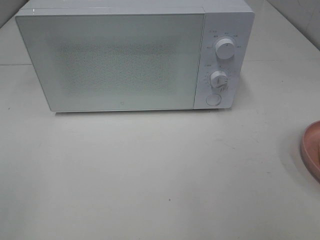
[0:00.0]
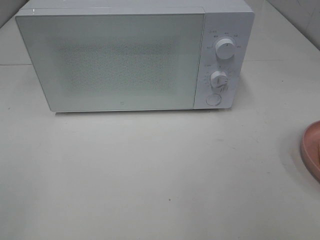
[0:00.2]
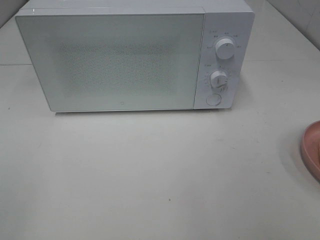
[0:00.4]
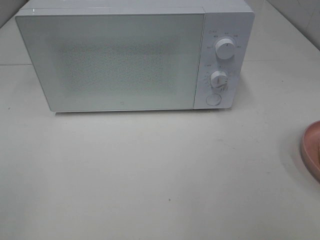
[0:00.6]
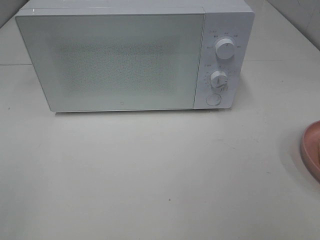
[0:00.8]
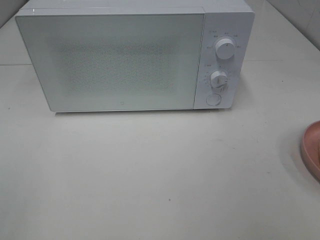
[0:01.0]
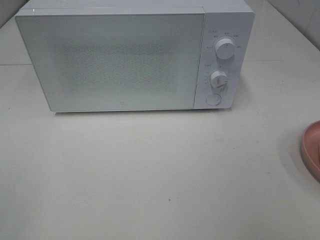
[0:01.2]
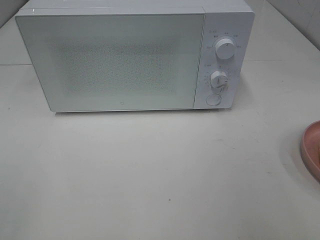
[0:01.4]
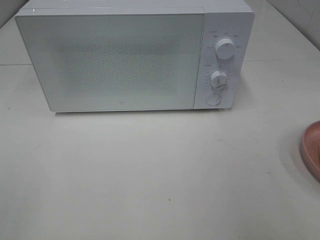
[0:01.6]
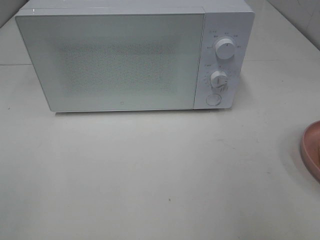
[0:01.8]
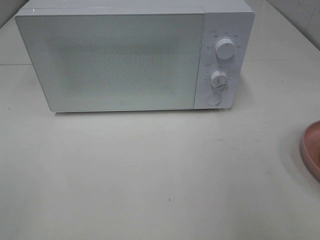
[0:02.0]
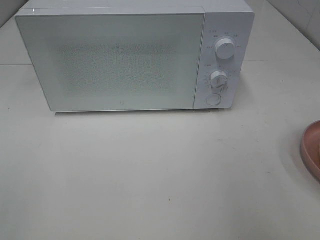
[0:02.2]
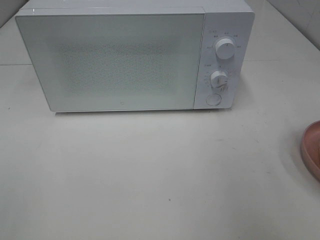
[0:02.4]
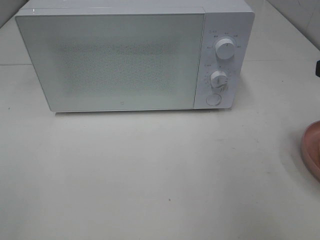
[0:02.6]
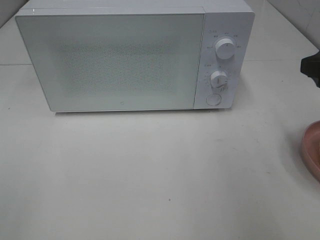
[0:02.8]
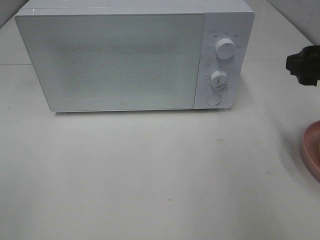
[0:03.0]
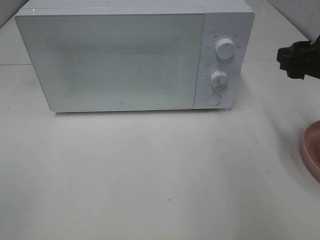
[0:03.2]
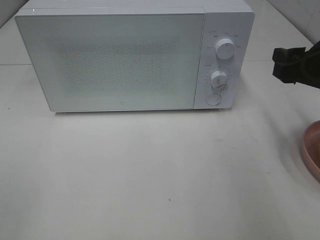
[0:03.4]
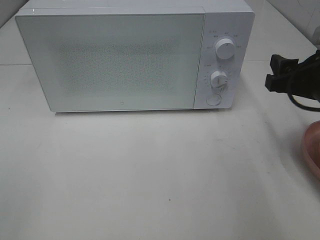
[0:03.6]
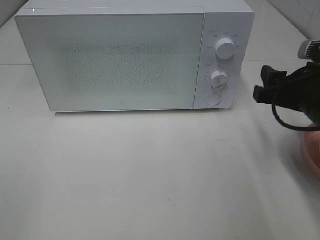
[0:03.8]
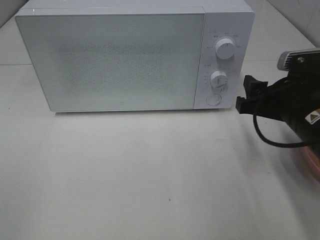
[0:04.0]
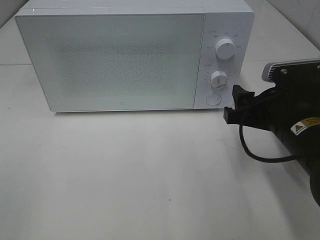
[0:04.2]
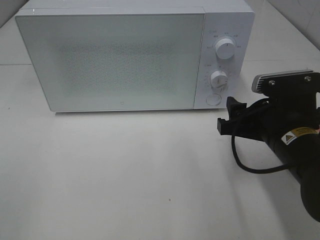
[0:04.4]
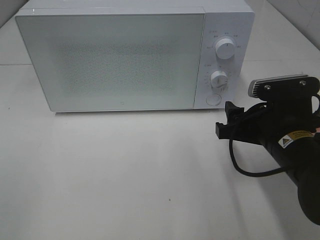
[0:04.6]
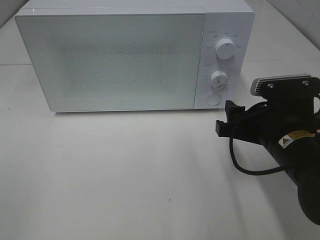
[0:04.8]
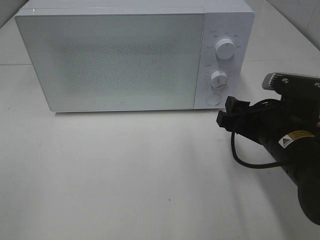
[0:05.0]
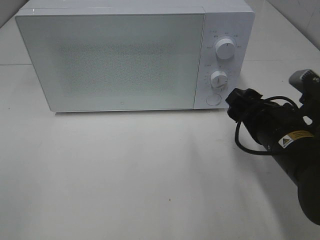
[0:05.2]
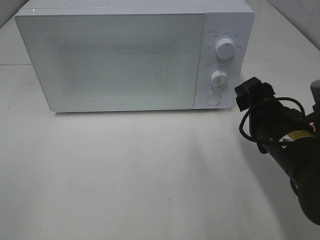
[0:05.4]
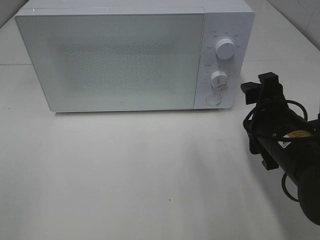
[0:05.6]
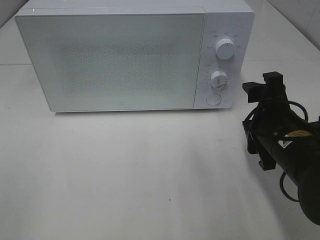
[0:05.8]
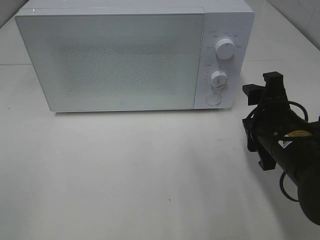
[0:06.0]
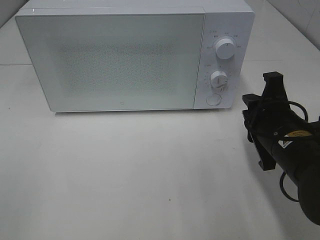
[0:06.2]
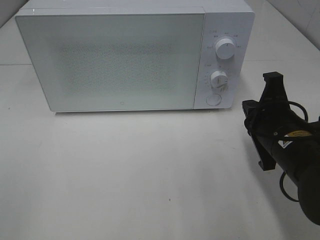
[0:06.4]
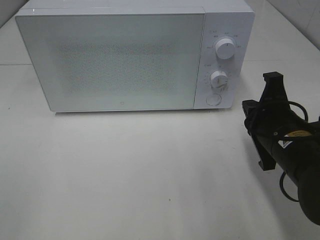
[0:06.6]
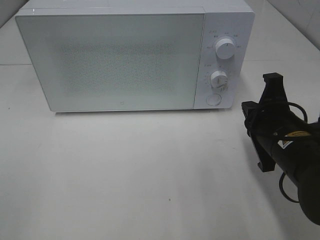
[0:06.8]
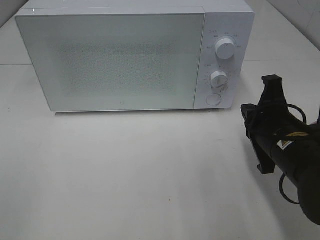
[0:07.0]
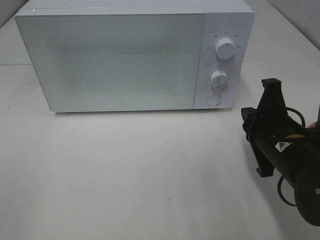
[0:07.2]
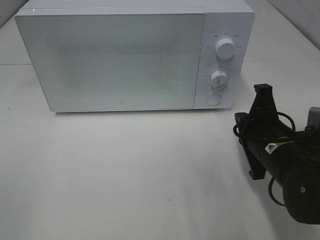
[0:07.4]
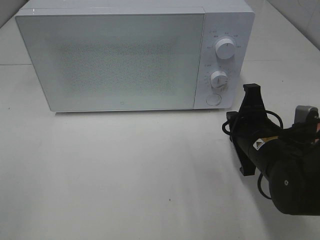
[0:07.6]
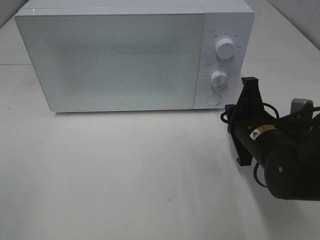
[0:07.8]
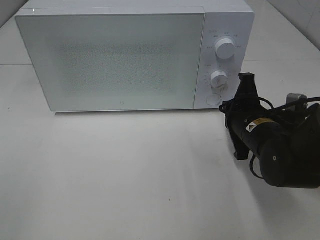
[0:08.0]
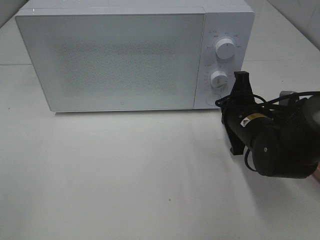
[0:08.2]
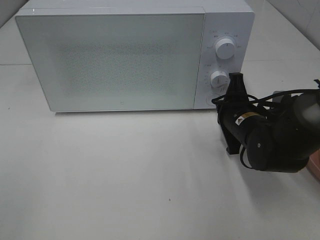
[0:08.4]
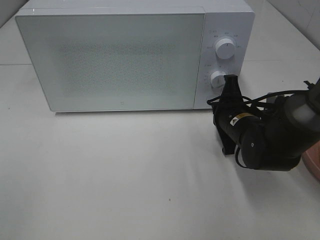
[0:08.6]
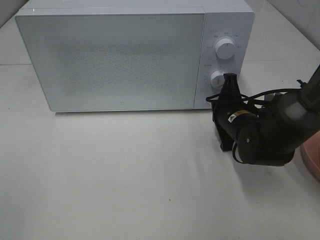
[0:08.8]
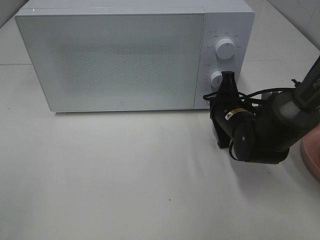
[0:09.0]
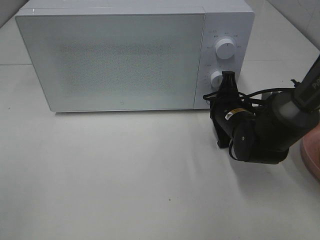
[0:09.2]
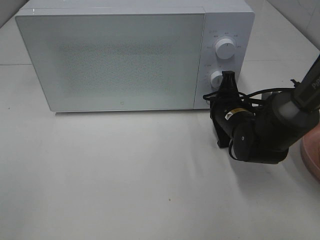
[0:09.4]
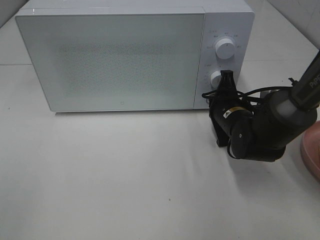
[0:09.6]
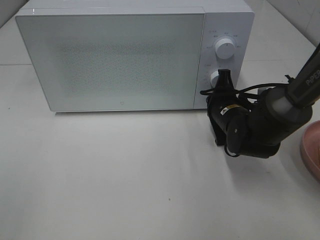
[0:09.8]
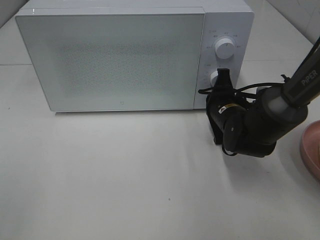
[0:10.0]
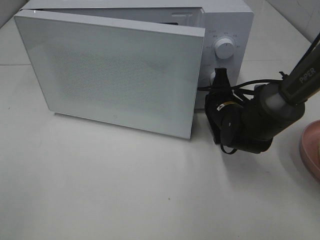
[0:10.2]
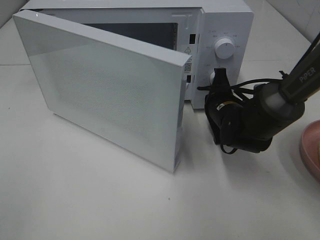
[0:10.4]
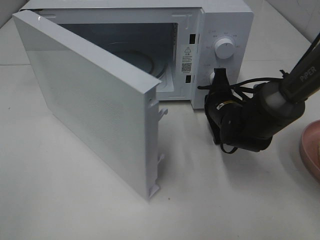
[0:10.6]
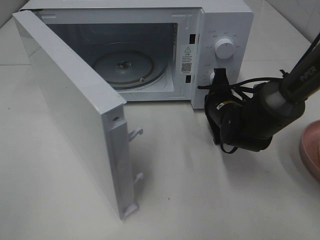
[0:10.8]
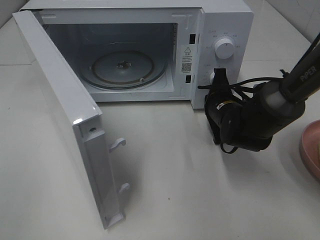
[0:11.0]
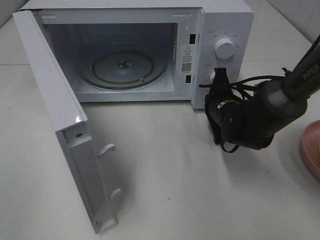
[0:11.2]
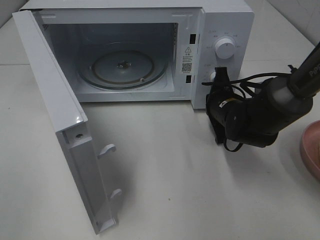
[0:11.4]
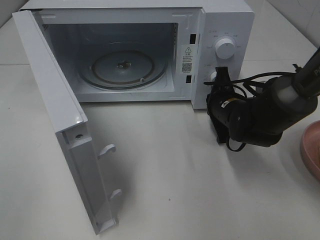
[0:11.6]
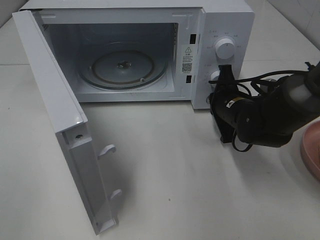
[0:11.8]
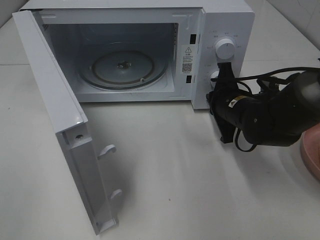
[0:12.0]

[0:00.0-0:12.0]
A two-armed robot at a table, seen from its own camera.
Task of the whole recording: Heat Sandwich.
0:01.6 to 0:03.0: The right gripper shifts some 15 cm forward.
0:03.0 to 0:04.4: The right gripper goes some 15 cm downward and to the left.
0:06.0 to 0:07.6: The right gripper closes up.
0:07.6 to 0:09.0: The right gripper shifts approximately 10 cm forward.

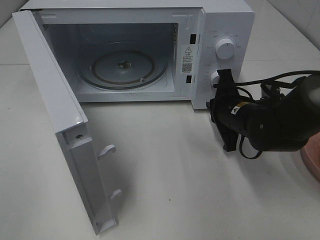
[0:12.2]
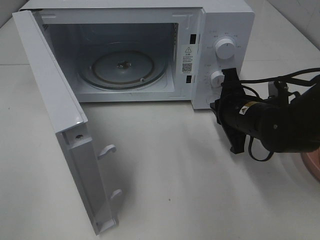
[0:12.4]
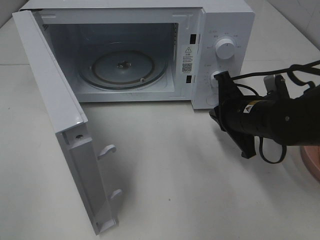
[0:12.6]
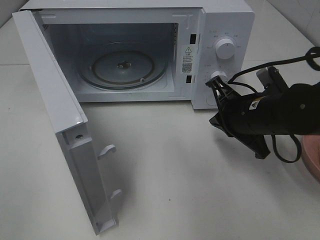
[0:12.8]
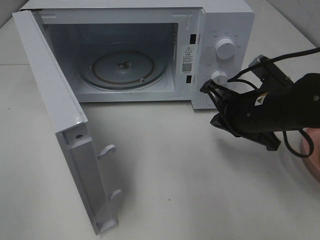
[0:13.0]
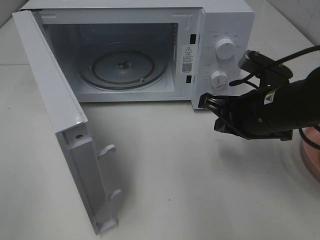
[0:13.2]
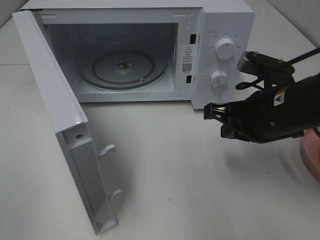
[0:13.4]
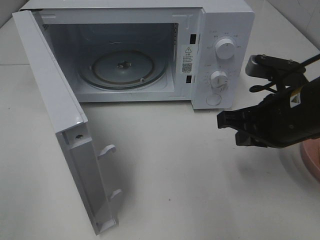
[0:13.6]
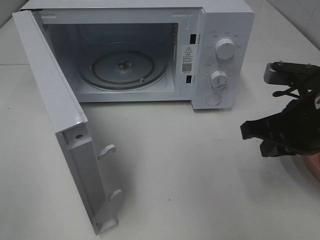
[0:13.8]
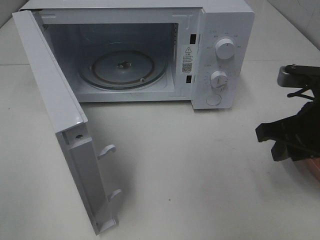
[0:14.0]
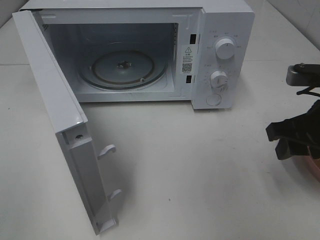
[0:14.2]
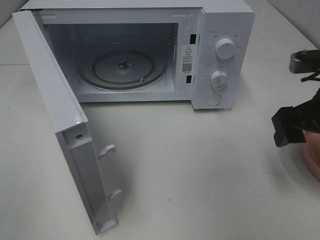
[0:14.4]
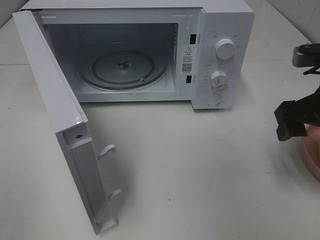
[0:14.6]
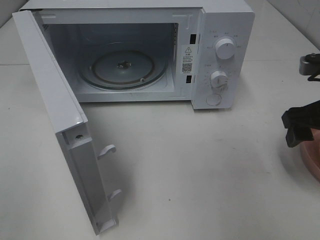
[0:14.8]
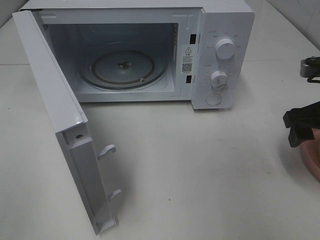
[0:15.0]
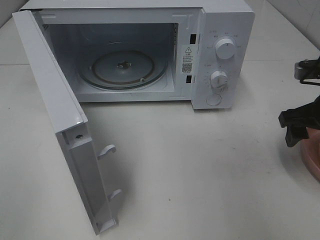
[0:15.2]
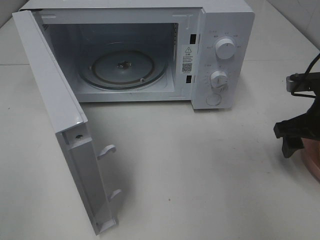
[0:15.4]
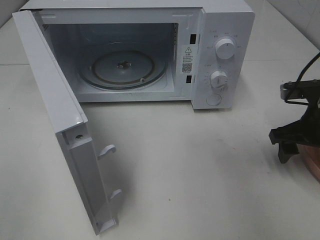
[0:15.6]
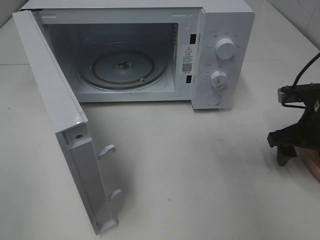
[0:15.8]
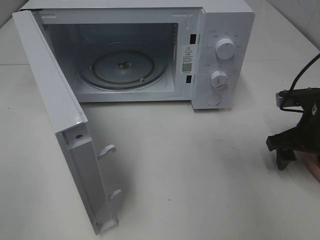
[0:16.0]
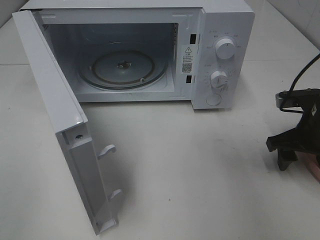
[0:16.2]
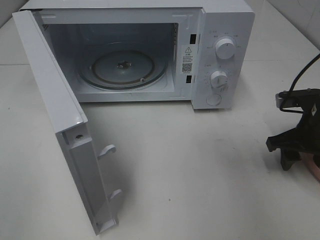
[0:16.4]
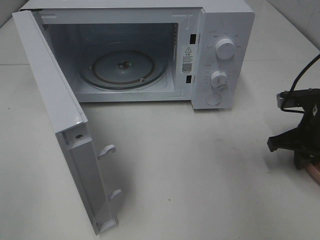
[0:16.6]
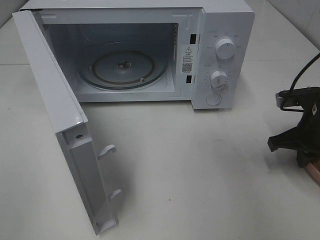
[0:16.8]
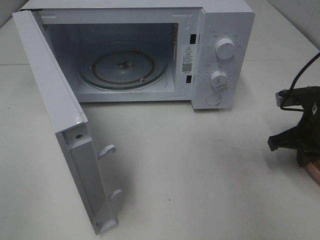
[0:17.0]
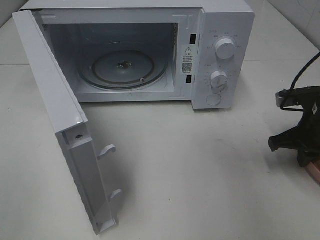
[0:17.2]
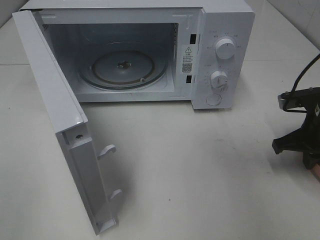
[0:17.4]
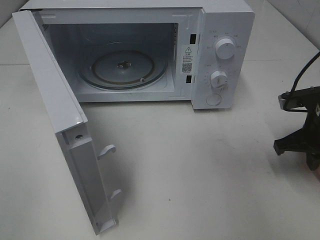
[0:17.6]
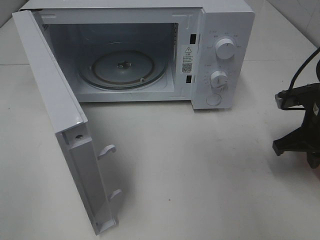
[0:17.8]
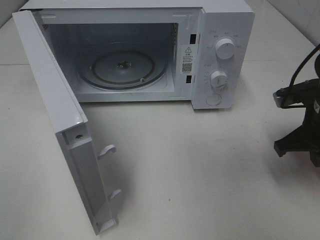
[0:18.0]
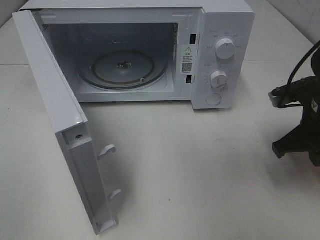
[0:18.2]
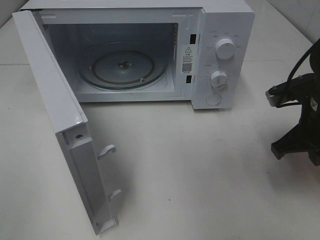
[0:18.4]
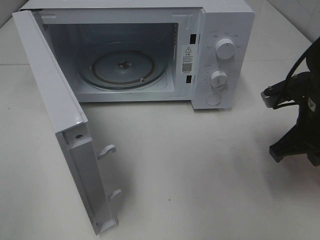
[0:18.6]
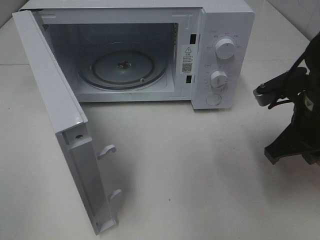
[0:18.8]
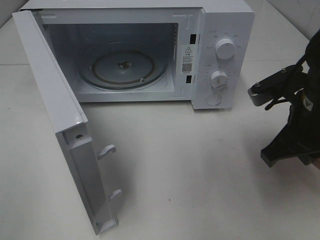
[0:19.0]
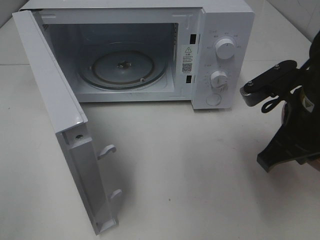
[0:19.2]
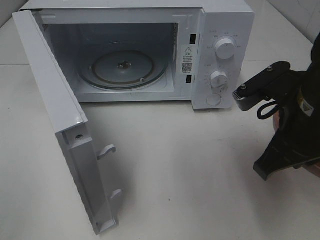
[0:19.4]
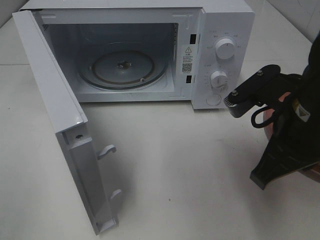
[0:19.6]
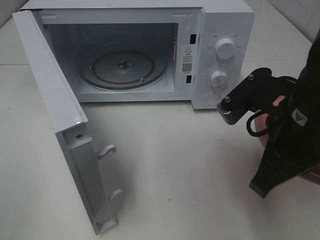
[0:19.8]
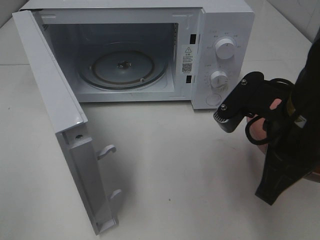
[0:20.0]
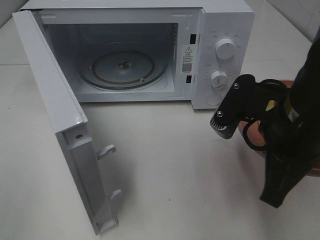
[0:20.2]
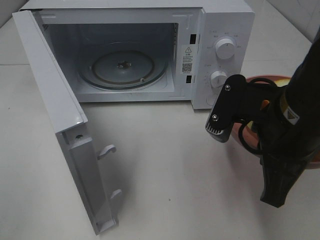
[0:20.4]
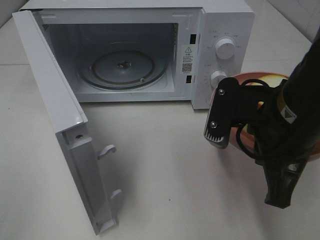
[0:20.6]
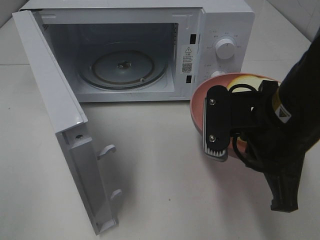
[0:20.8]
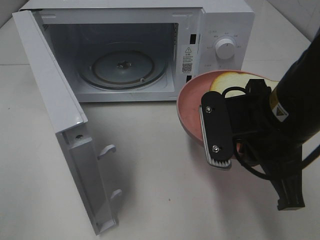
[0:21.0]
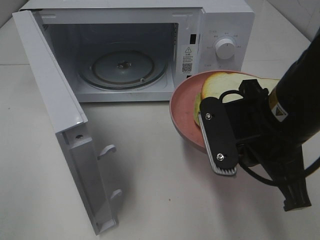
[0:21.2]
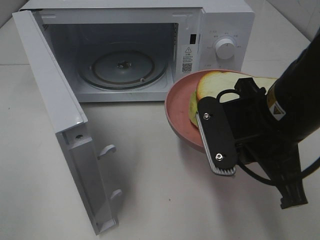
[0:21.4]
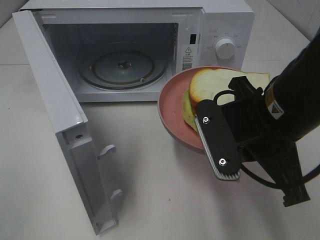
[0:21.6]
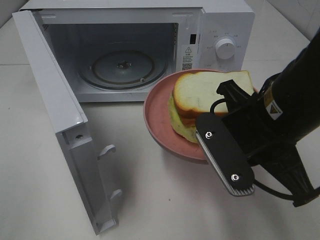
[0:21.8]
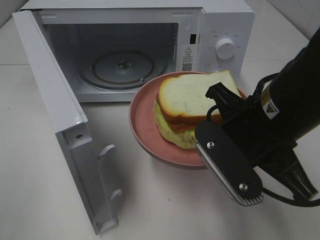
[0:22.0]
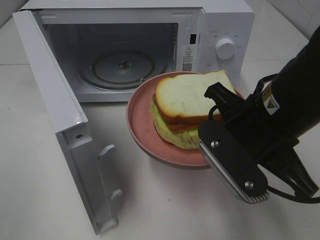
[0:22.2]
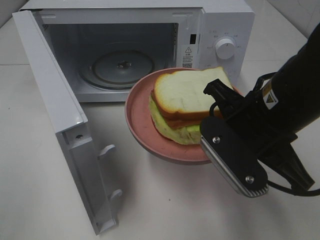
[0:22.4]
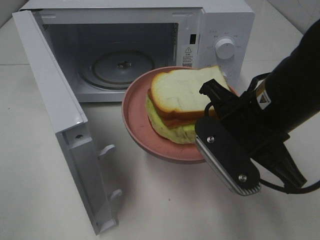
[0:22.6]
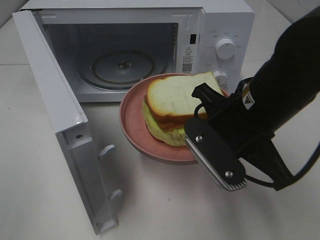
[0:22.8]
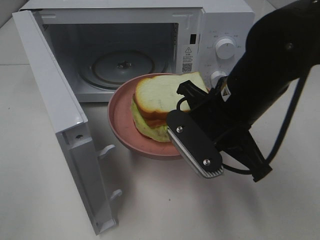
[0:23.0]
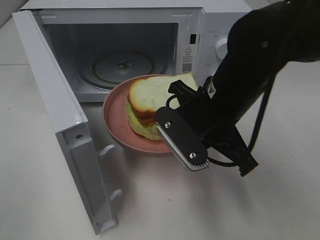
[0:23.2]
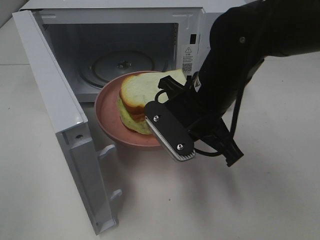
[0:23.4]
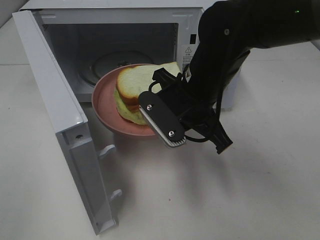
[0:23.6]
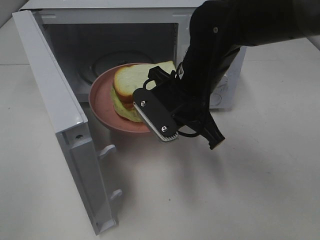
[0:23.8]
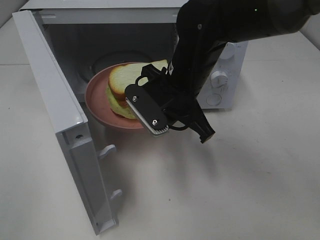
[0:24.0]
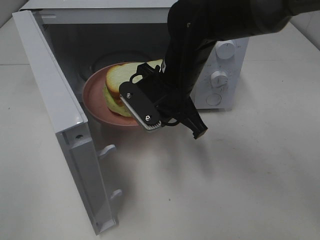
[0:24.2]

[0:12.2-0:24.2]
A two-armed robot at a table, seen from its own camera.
Task of the whole recording: Heat Sandwich.
Step, 0:12.8 to 0:17.0: Right hand: grab the plate with the sandwich.
0:12.2 to 0:13.8: The right gripper is displaced backward, upward and to the right by some 15 cm.
0:13.8 to 0:15.2: The right gripper travels to the right and forward by approximately 10 cm, and opens its fingers.
0:15.2 to 0:16.6: The right gripper travels downward by some 5 cm, and closes.
0:16.6 to 0:18.2: The right gripper changes place by about 5 cm.
0:18.2 to 0:19.8: The right gripper travels to the left, backward and upward by approximately 15 cm.
0:22.6 to 0:24.2: The right gripper shifts about 15 cm forward and to the left.
